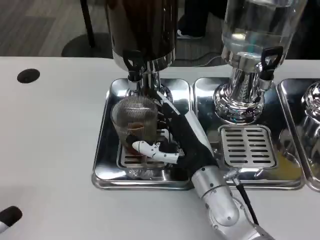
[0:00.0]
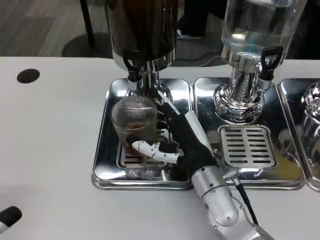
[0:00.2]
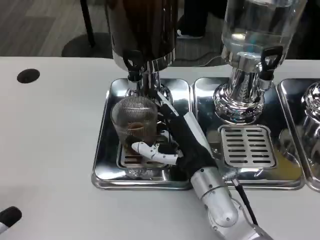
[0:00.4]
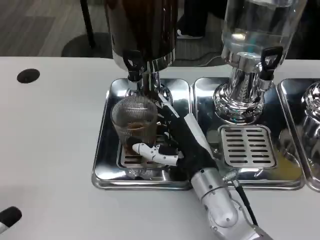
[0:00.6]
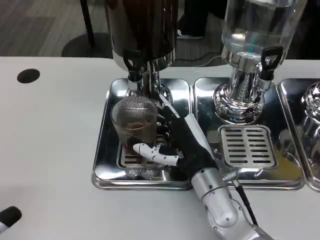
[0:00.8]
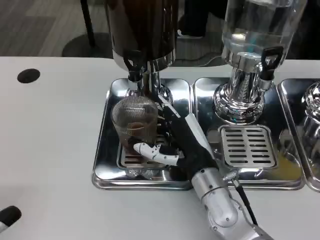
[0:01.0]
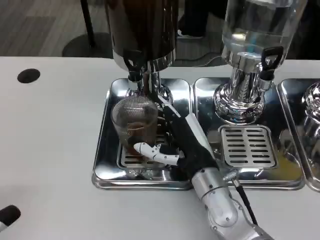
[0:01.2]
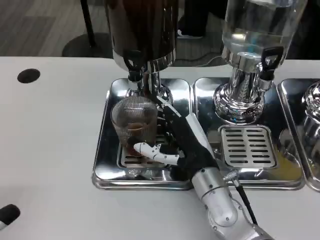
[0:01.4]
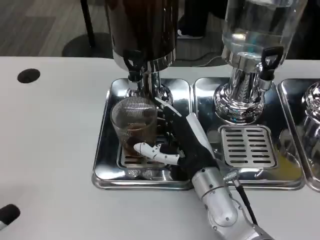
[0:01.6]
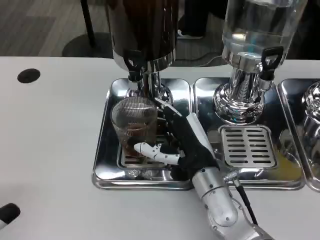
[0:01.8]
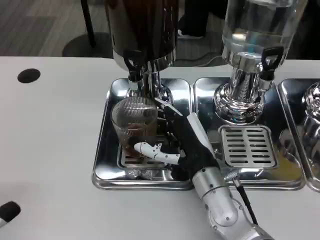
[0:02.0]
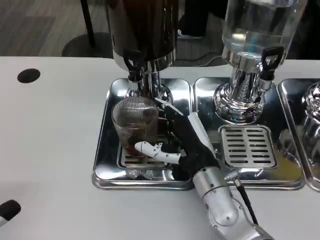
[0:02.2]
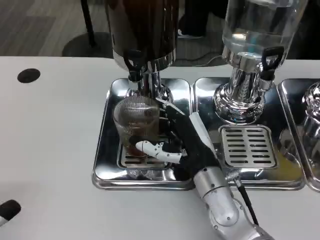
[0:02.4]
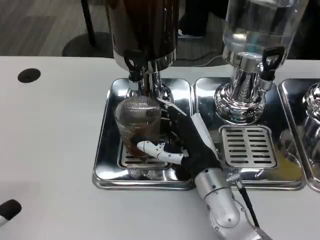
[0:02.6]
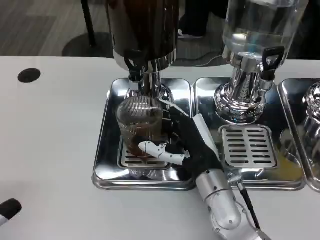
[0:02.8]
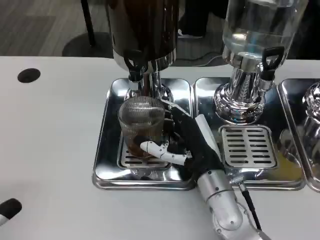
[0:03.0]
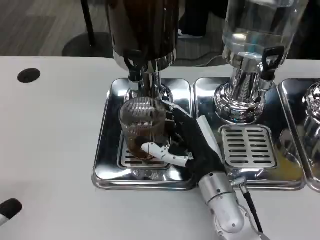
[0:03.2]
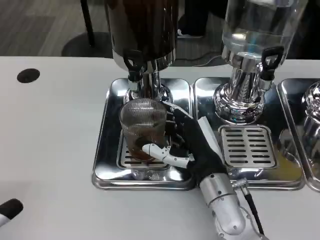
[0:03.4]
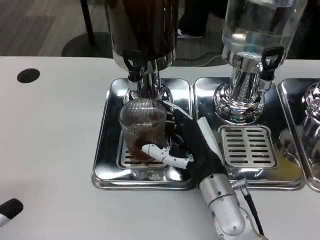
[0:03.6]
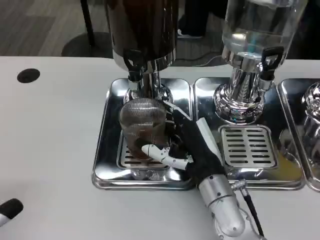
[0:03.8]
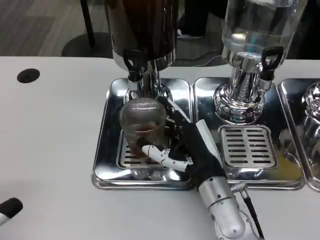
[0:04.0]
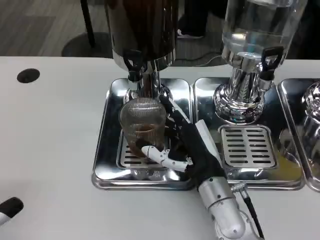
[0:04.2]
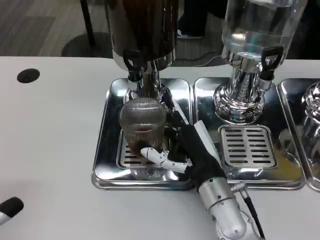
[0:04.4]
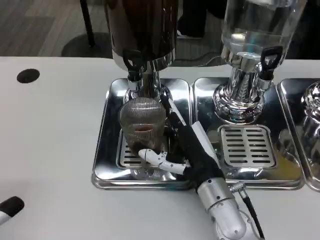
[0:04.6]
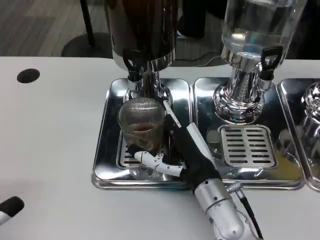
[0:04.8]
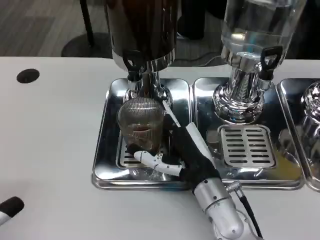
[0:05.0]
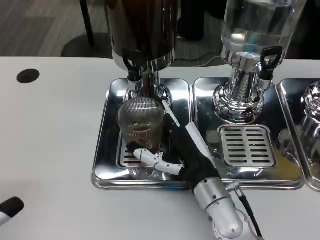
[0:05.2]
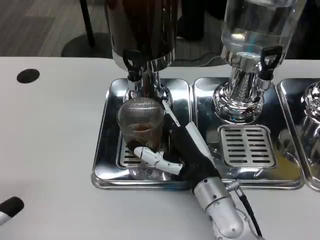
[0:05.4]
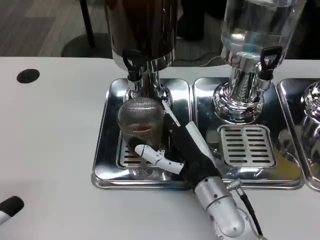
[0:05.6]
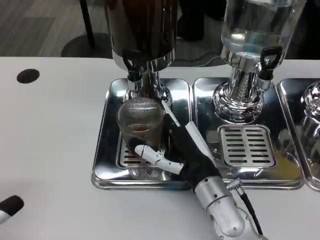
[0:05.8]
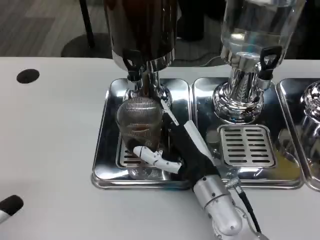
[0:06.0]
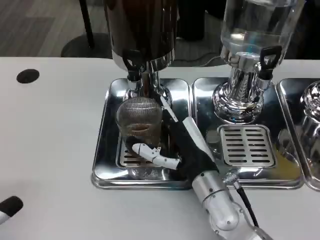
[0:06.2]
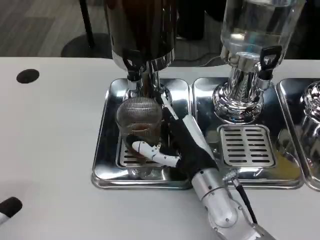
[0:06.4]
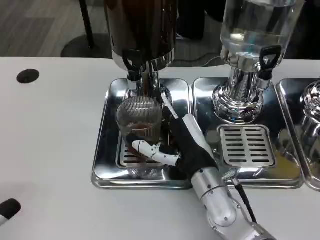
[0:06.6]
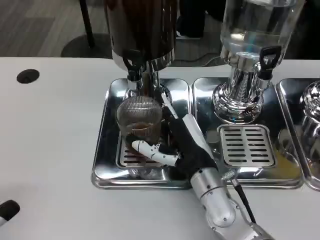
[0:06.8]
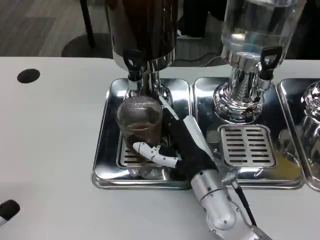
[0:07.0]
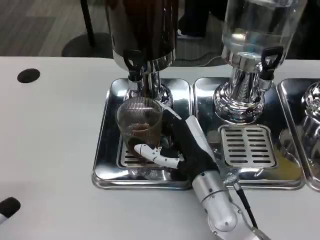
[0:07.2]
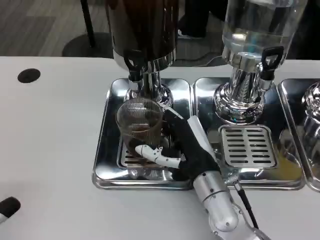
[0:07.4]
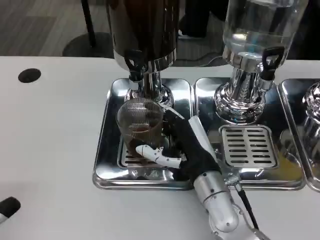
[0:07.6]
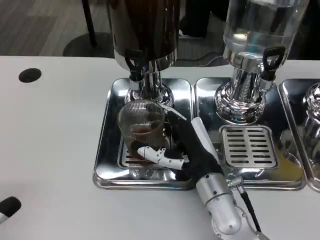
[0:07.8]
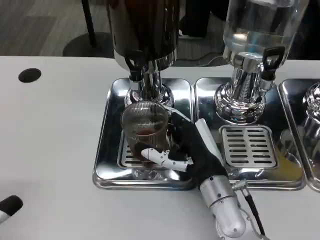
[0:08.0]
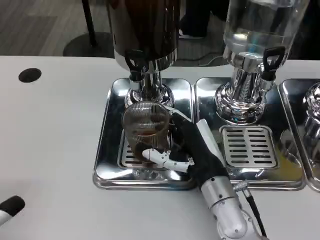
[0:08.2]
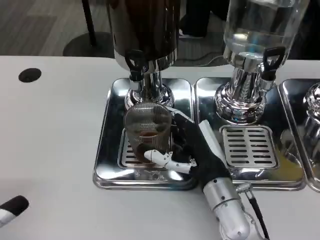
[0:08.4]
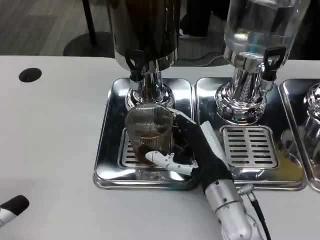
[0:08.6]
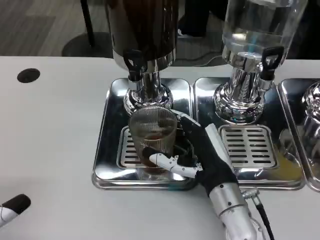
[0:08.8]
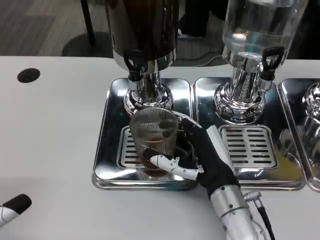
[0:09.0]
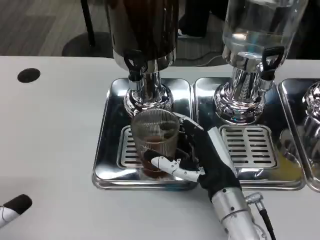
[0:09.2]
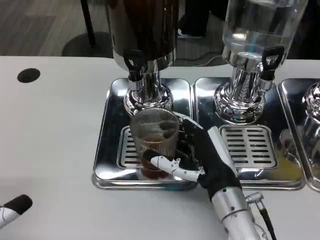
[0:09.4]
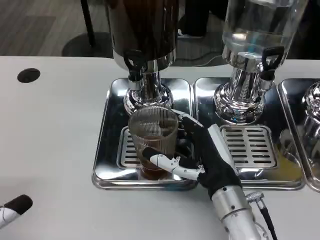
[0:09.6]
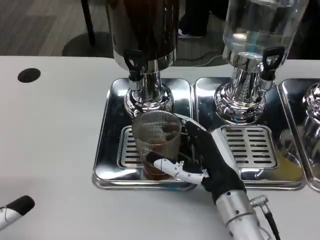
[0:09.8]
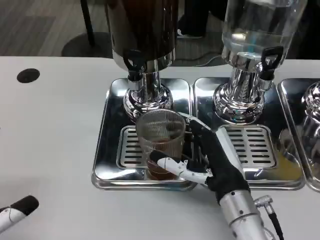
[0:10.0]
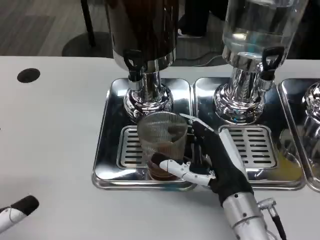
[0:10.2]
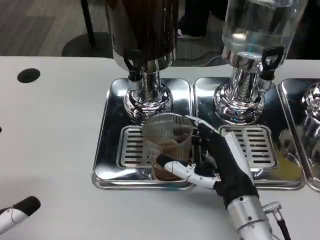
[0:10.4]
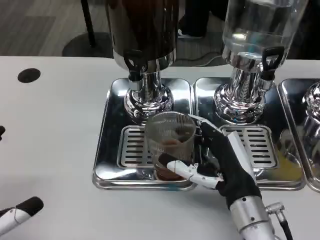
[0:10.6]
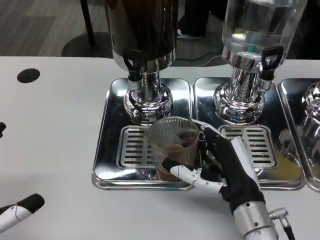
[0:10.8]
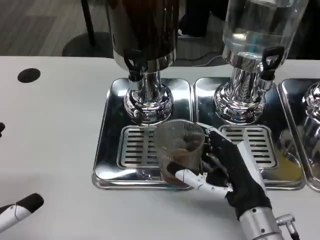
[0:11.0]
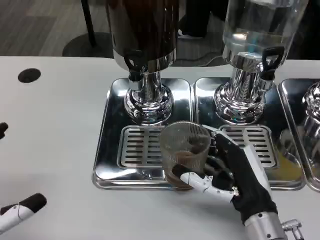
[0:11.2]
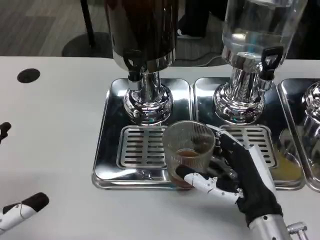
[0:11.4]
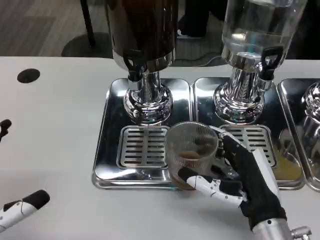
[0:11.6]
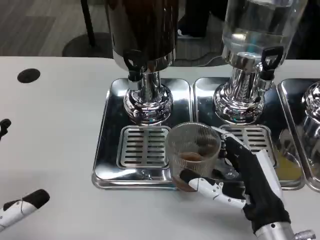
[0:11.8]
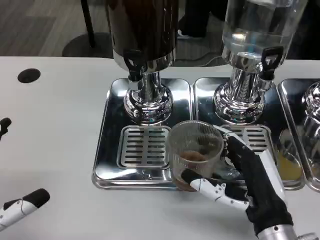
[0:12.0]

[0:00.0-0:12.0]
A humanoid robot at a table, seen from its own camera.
Task of the whole recording: Grasp the cup under the faucet to collect the drink, then remove the cup.
0:00.0 to 0:03.0: Both hands stay put.
0:03.0 to 0:04.4: Both hands stay put.
0:04.4 to 0:06.0: Both hands stay put.
0:06.0 to 0:07.6: Neither hand changes place.
0:07.6 to 0:09.0: There are only small adjustments of the hands.
0:09.0 to 0:10.4: The hands make only small movements.
0:10.4 to 0:12.0: The right hand changes place by about 5 cm.

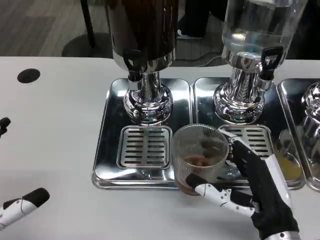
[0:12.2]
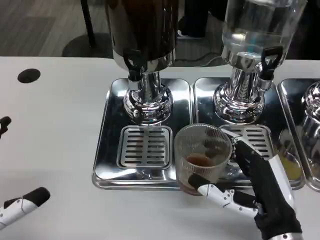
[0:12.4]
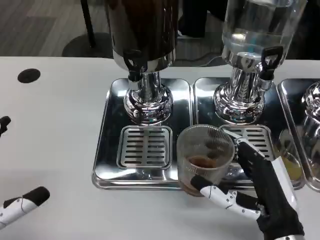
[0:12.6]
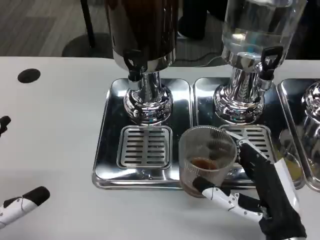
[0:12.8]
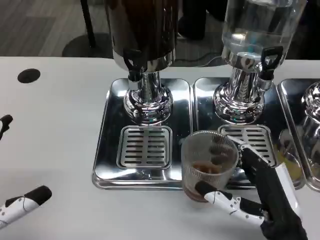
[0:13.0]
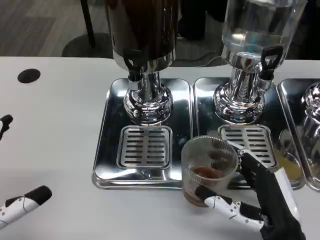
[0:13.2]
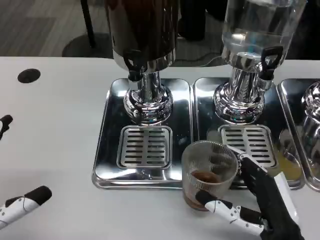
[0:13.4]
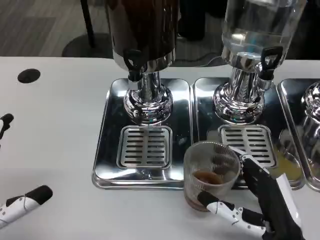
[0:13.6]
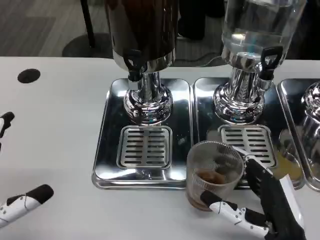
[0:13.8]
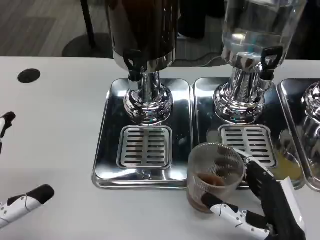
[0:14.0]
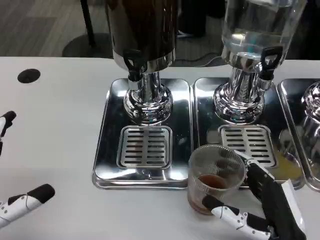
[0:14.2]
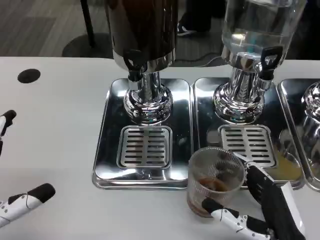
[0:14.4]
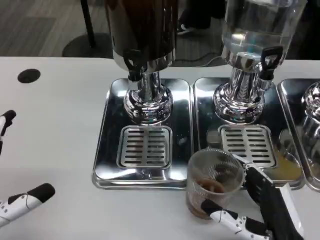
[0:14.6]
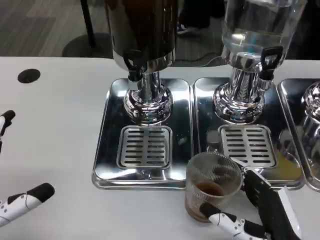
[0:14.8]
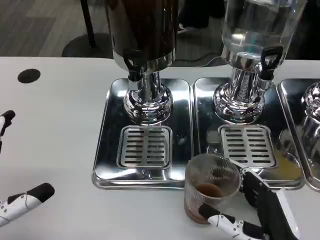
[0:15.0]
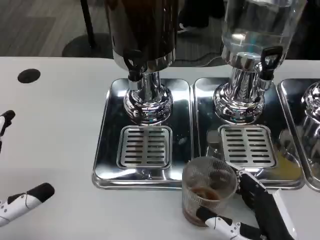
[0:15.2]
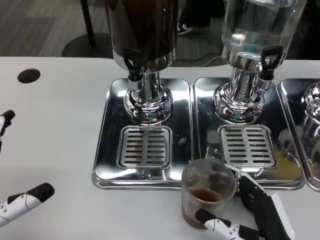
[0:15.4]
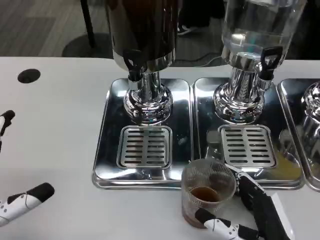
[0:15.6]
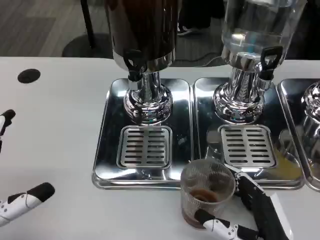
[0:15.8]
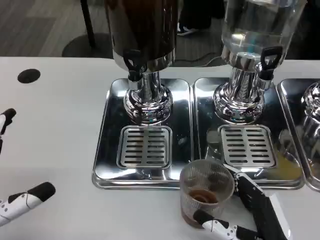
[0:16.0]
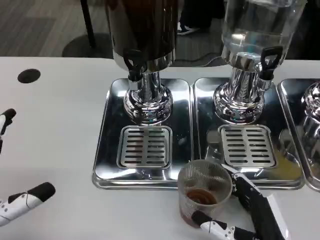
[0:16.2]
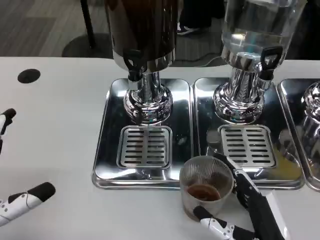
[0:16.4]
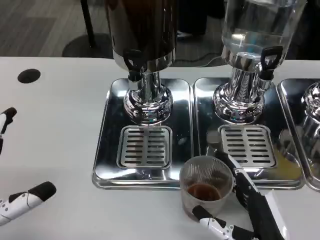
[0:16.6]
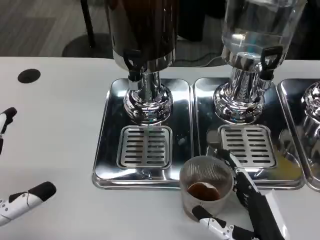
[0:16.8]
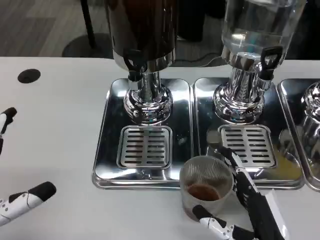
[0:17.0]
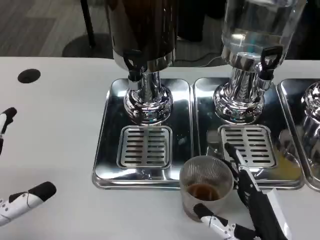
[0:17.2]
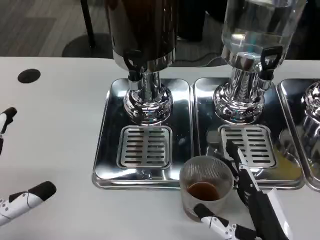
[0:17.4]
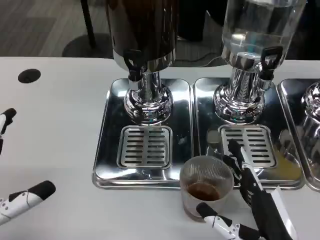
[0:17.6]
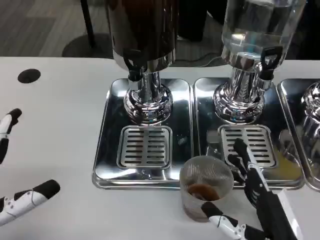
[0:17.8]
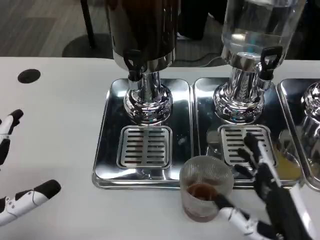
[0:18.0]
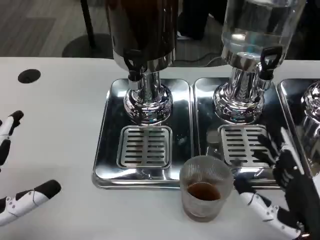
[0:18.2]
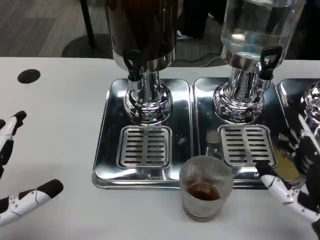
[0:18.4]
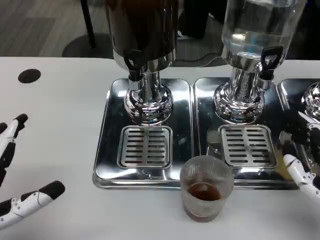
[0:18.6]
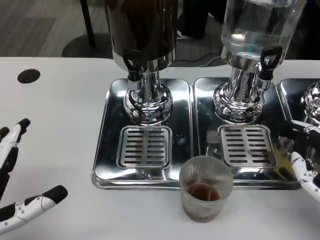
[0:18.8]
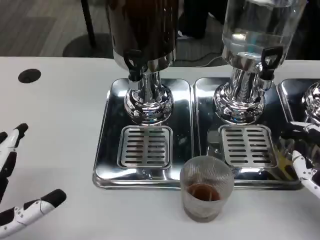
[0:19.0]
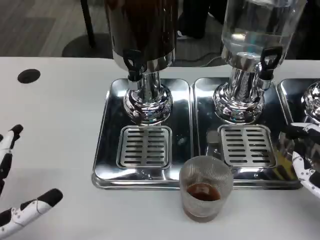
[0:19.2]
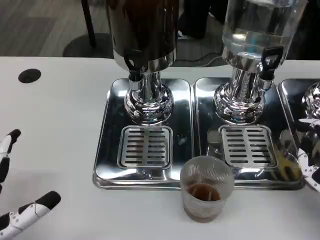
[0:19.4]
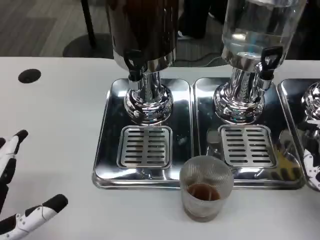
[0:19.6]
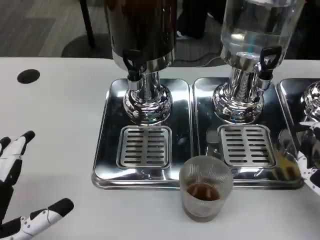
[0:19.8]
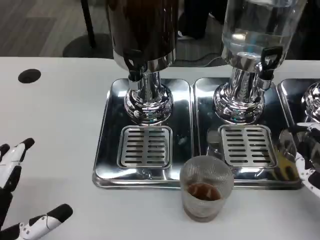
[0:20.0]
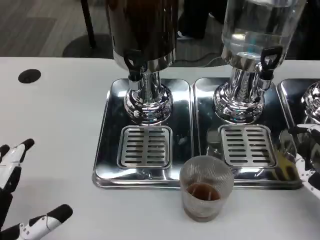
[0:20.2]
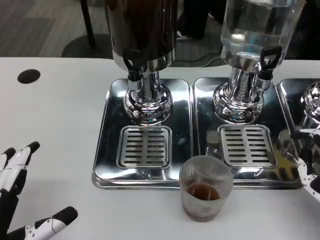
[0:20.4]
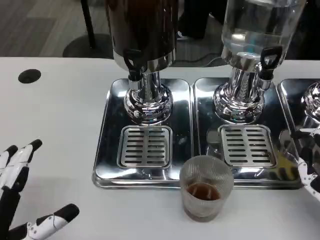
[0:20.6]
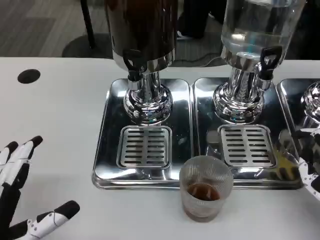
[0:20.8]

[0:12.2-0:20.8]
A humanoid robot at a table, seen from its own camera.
Task of the whole recording: Grasp the cup under the faucet to collect the drink, then remove the cup.
0:12.2 to 0:15.0: The hands move only a little.
0:15.0 to 0:16.6: Both hands stay about where they are.
0:16.6 to 0:18.0: The hands stay close to where they were, moving slightly.
0:18.0 to 0:19.4: The right hand goes some 10 cm to the right and forward.
0:19.4 to 0:20.8: The hands stay close to where they were, moving slightly.
